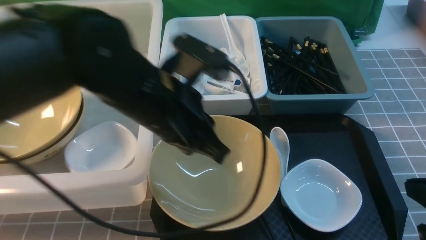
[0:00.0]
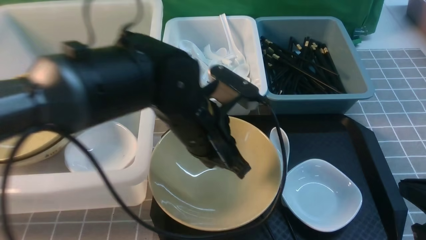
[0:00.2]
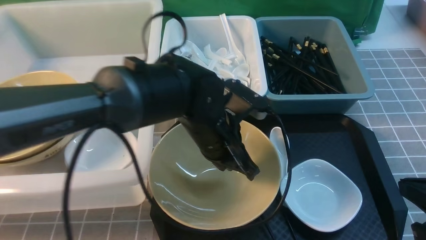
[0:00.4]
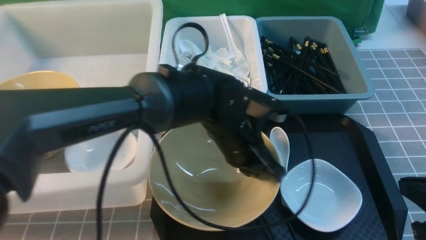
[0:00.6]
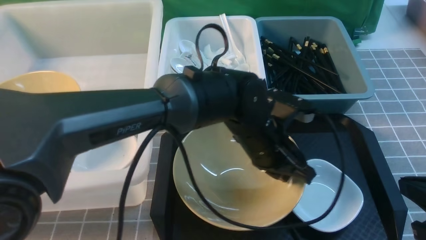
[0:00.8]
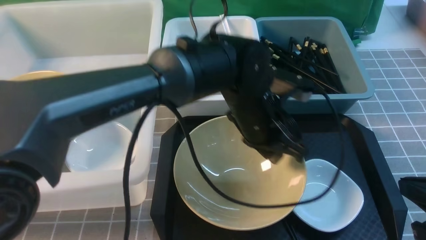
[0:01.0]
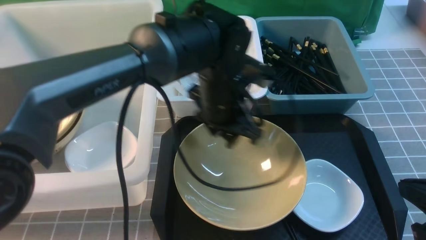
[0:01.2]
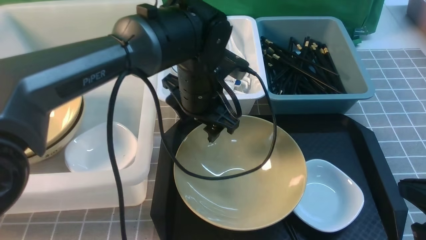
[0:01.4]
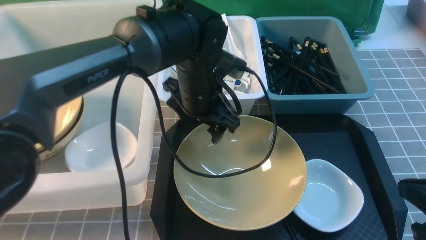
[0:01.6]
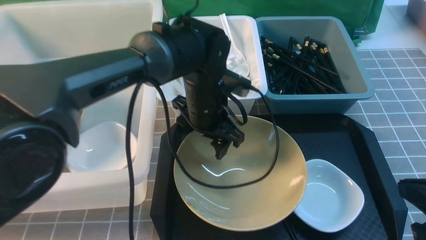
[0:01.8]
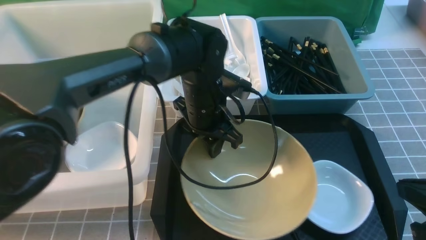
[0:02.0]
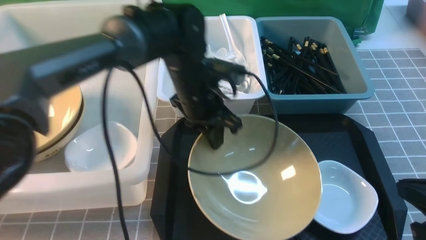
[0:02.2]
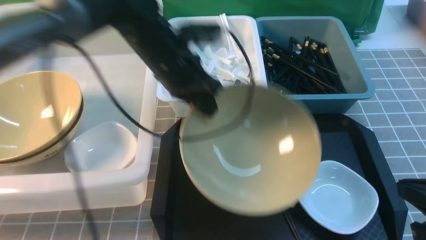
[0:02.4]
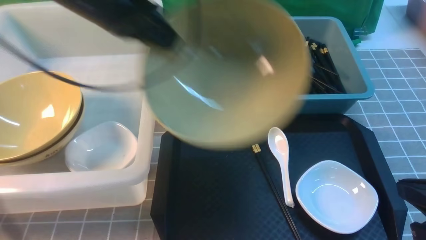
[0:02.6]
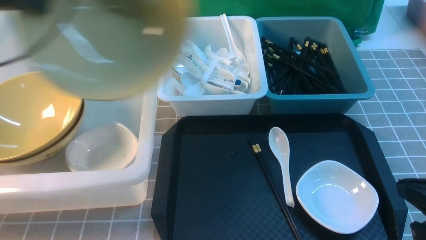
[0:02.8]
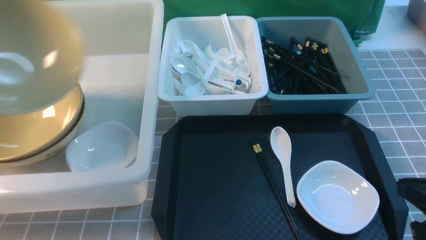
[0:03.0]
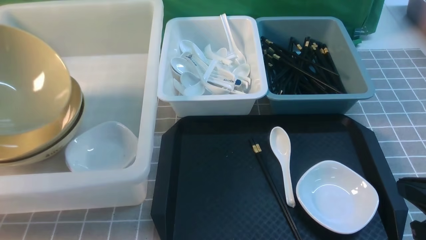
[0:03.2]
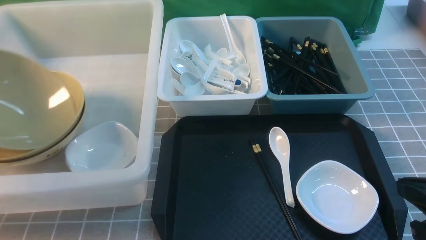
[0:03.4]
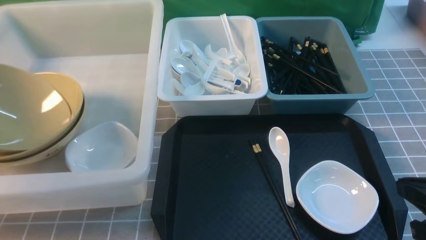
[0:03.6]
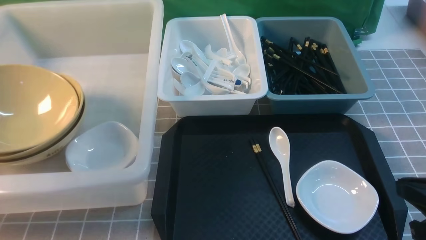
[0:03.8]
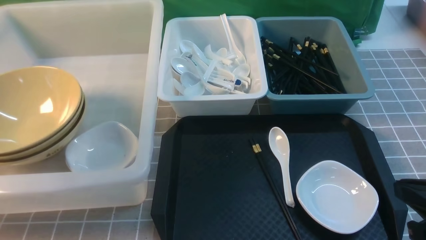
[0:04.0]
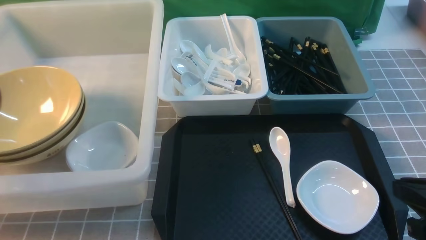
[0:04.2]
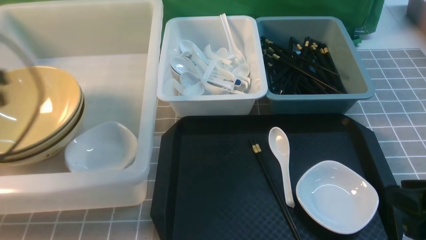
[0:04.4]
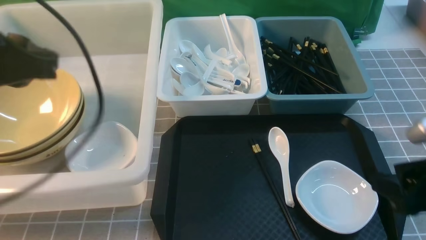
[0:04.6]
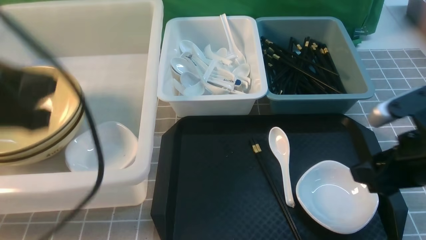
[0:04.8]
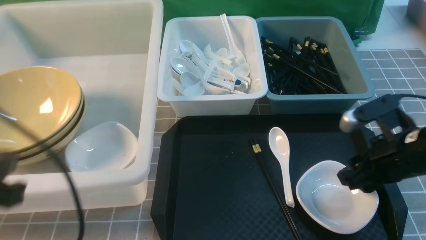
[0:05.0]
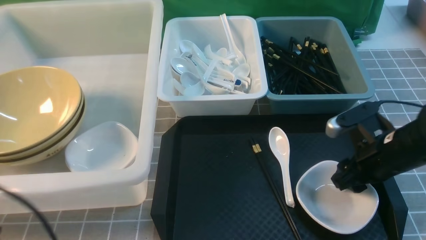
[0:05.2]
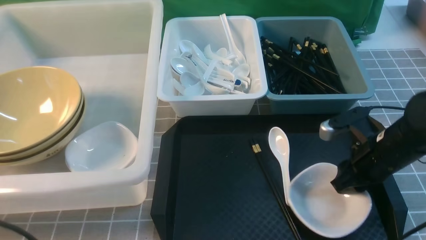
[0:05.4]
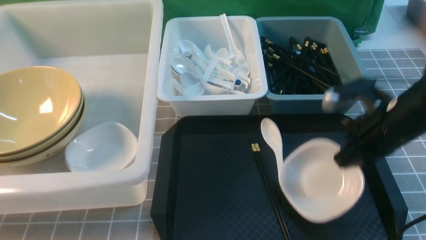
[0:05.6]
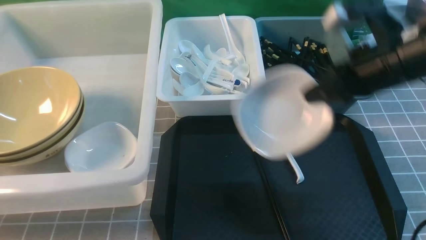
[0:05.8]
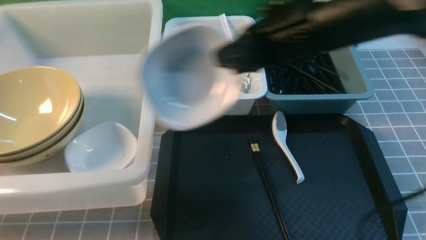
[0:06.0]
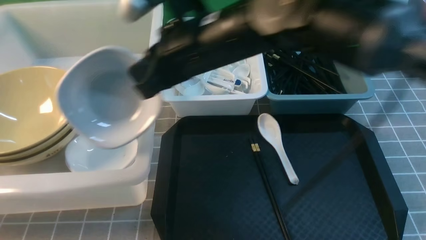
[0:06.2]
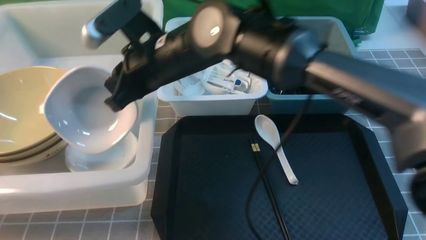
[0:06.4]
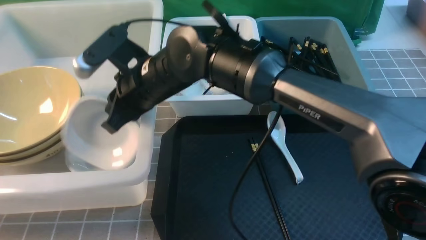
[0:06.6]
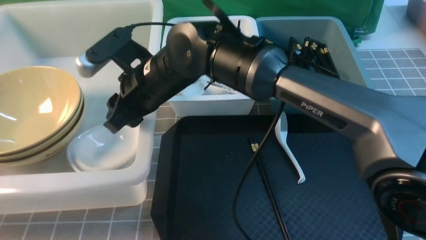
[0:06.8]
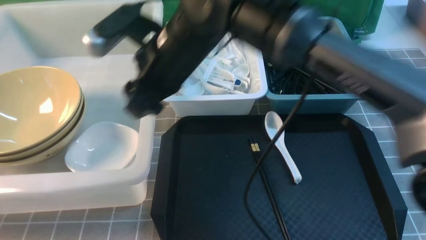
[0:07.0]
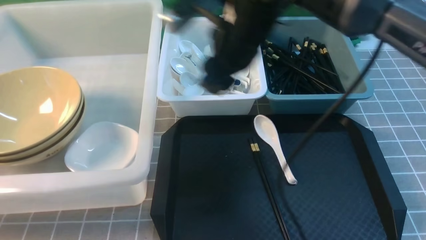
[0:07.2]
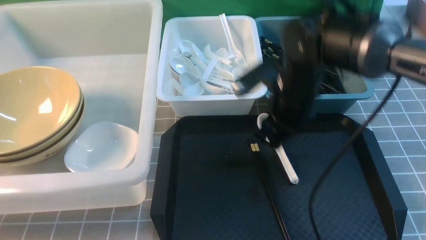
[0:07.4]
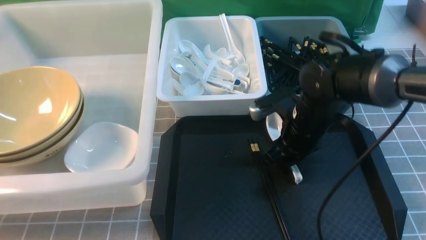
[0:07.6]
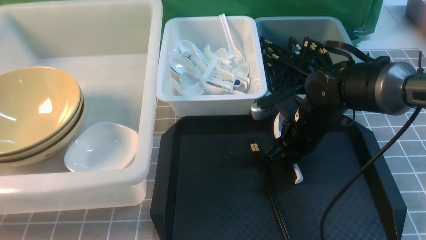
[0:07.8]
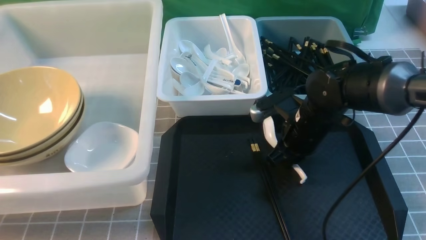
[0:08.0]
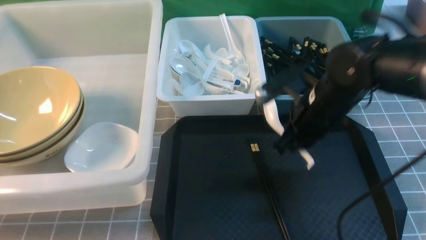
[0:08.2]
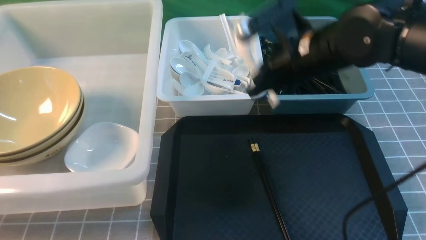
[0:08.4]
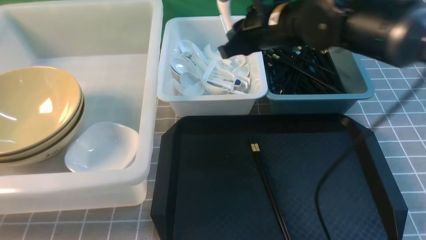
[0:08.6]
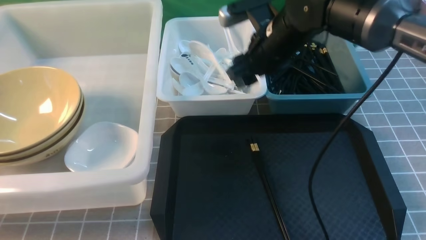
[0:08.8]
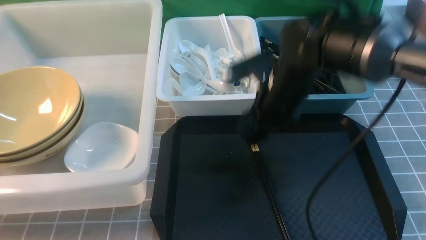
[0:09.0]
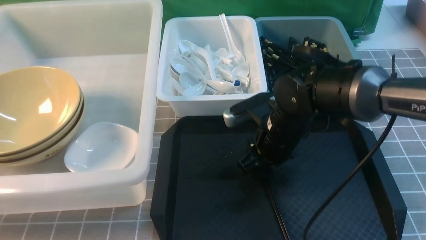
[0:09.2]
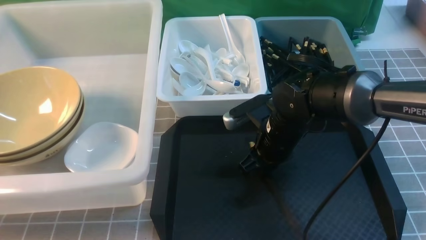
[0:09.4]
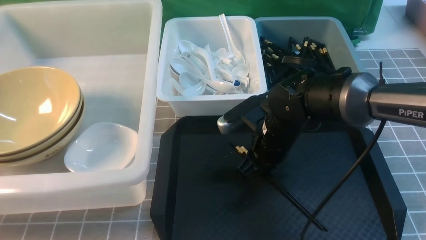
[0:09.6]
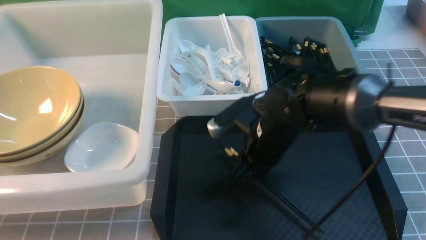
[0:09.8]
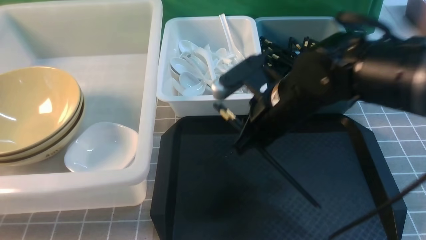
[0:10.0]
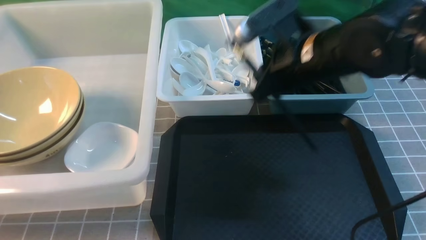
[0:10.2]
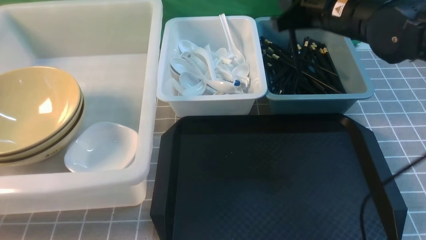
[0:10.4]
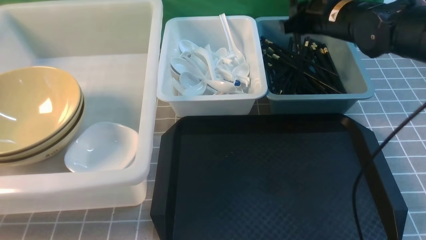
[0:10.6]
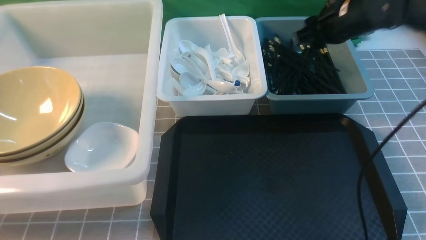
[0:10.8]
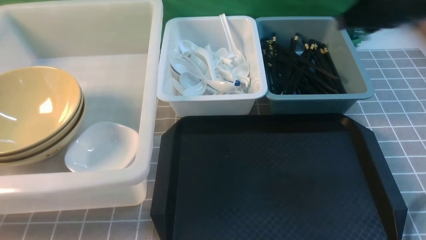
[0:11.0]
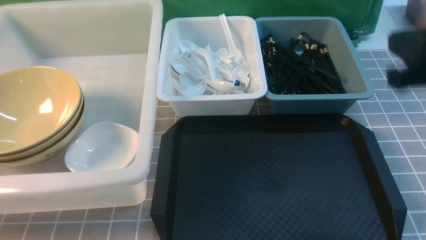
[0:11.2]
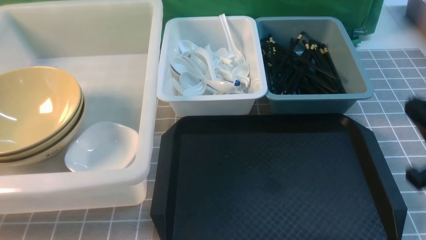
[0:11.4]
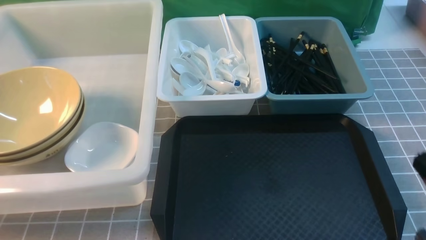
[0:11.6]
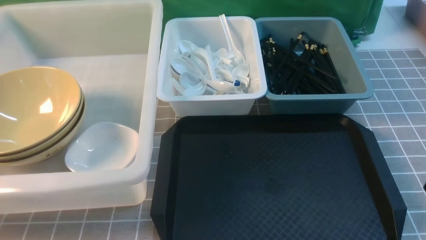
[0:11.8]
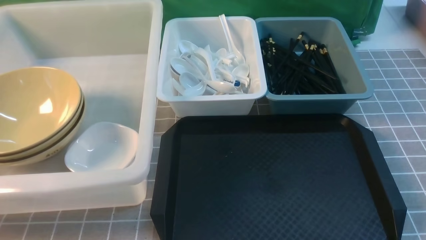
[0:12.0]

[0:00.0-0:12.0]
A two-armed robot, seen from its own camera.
Task of the whole recording: on grey table put chopsticks spoon bowls plates into blue grey white boxes.
Step, 0:00.0 to 0:02.2: use the left arm to grab the yellow noodle bowl on the left.
Step, 0:02.4 to 0:03.8: use the left arm to put the noodle bowl into the large storage box on the left.
Step, 0:04.0 to 0:05.6: use the right arm to grab the plate.
Step, 0:05.8 to 0:06.8: use the right arm to put the plate into the large storage box on the left.
Step, 0:07.0 to 0:08.0: use the right arm to grab the soup spoon in the middle.
Step, 0:08.2 to 0:08.8: use the right arm to put the soup spoon into the small storage box in the middle.
Step, 0:09.0 to 0:09.6: use the right arm to grab the chopsticks.
Step, 0:09.8 to 0:10.6: use the right arm to put the chopsticks into the small storage box on the right.
0:00.0 to 0:01.6: The left gripper goes about 15 cm forward and downward, and opens.
0:01.6 to 0:03.0: The left gripper shifts some 40 cm to the left, and closes its fingers.
0:03.0 to 0:04.4: The right gripper opens its fingers. The left gripper is displaced to the right by about 10 cm, and opens, then closes again.
0:04.4 to 0:06.0: The left gripper moves backward, about 20 cm, while the right gripper moves to the left, forward and upward, about 30 cm, and closes up.
0:06.0 to 0:07.6: The right gripper shifts roughly 20 cm downward, reaches approximately 15 cm to the left, then returns, and opens.
0:07.6 to 0:09.0: The right gripper closes and opens again.
0:09.0 to 0:10.4: The right gripper is displaced upward and to the right by about 10 cm, and closes.
0:10.4 to 0:12.0: The right gripper heads backward and to the right, covering approximately 35 cm, and closes.

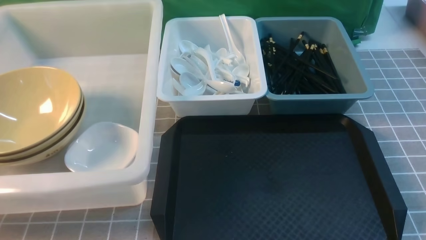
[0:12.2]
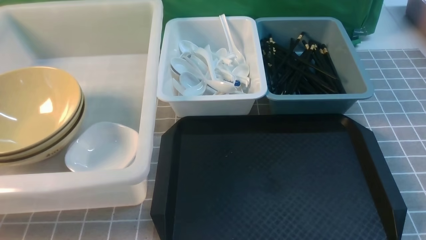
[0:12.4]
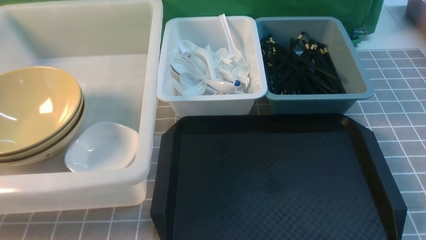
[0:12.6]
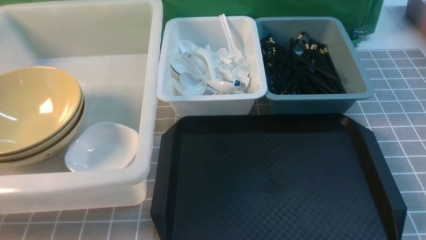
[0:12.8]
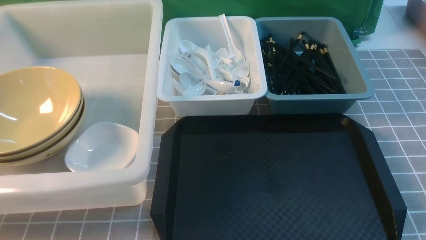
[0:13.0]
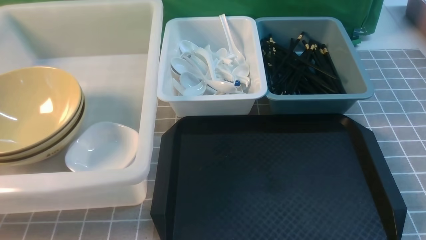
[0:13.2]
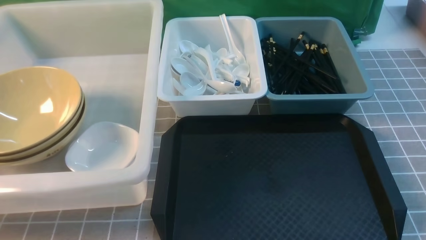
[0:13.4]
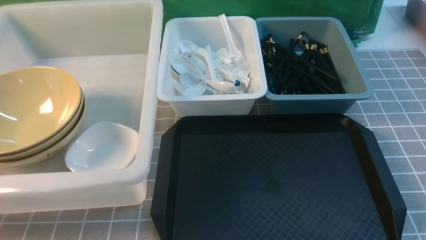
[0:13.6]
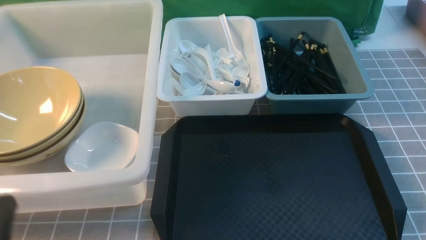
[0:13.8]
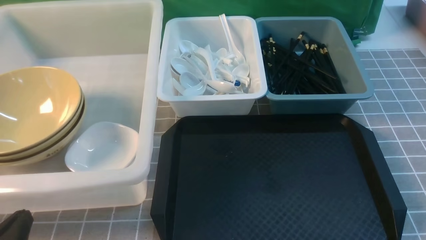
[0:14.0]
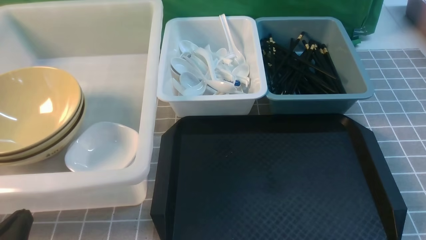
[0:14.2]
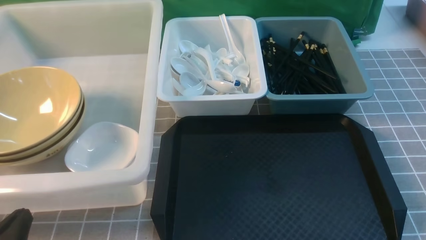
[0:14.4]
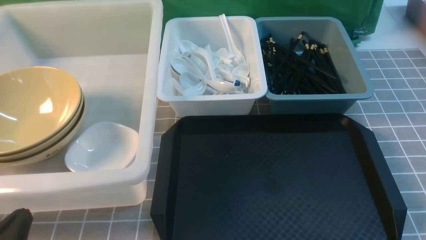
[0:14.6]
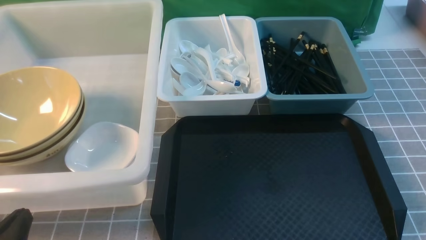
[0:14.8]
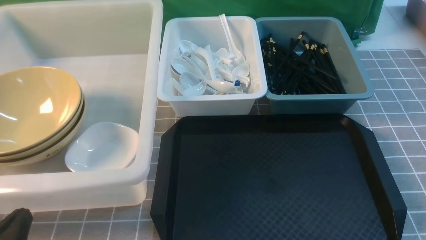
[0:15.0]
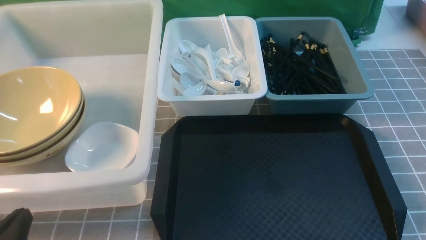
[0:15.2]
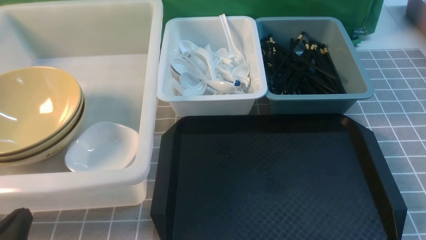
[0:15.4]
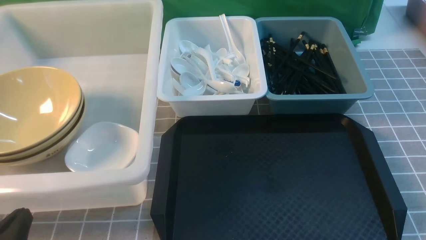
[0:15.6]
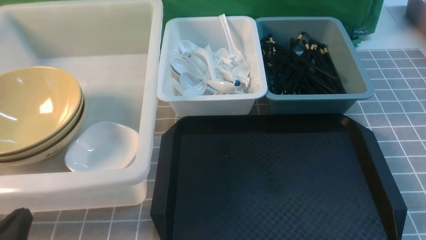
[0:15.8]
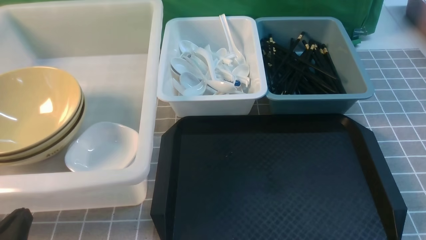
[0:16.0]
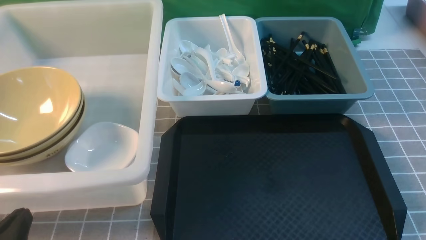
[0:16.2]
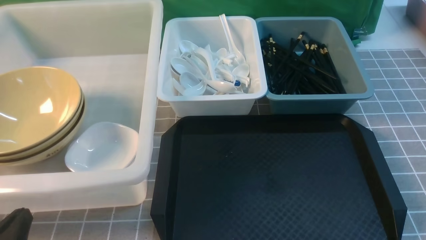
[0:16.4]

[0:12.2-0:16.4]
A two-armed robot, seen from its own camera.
Task of the whole recording: on grey table put chopsticks spoon bowls plates into blue grey white boxes.
0:13.6 to 0:15.0: The left gripper moves downward, some 5 cm.
0:15.0 to 0:16.4: Both grippers stay about where they are.
